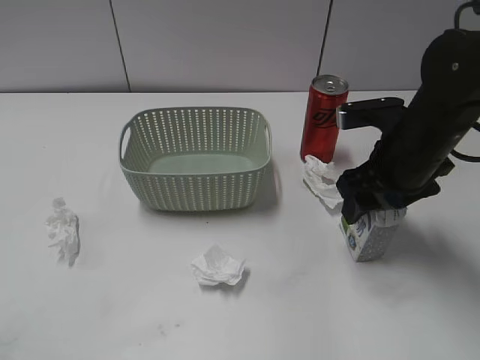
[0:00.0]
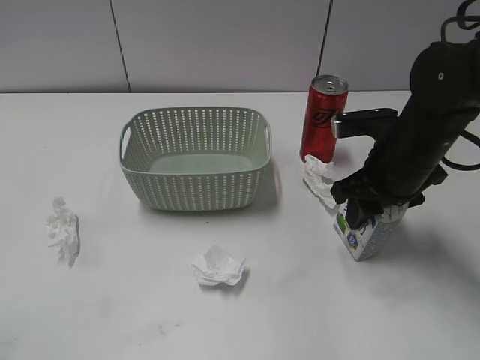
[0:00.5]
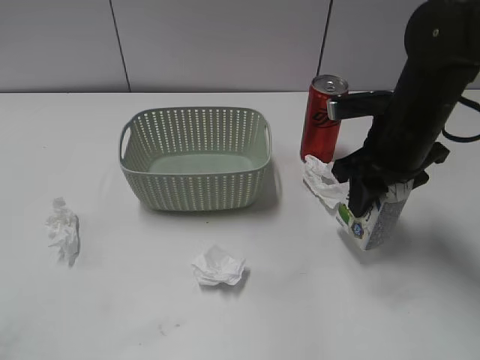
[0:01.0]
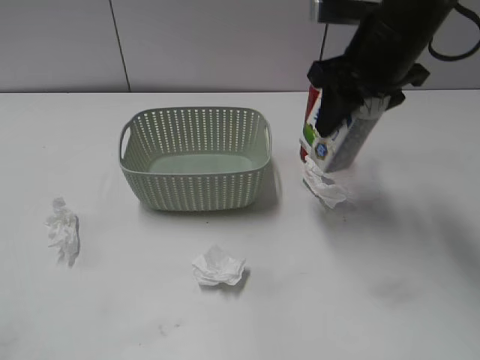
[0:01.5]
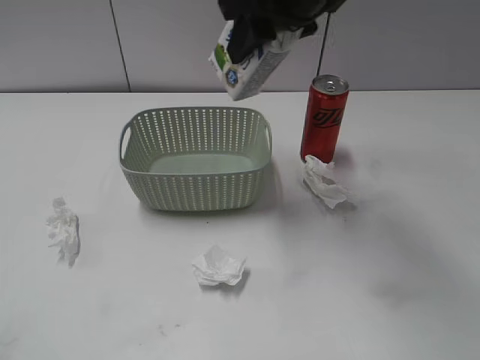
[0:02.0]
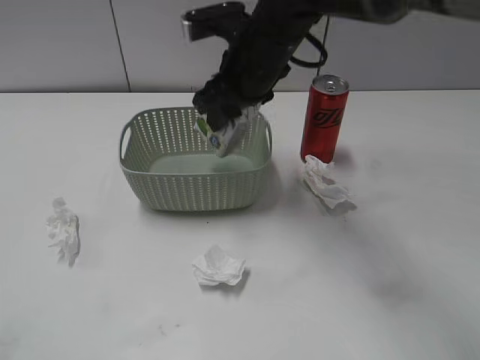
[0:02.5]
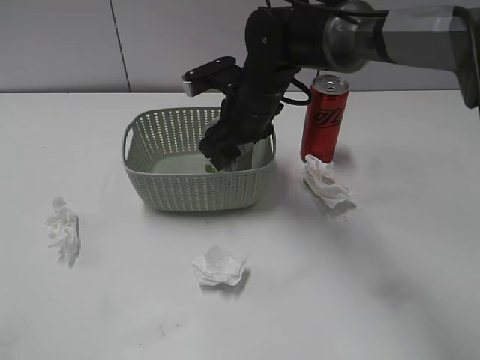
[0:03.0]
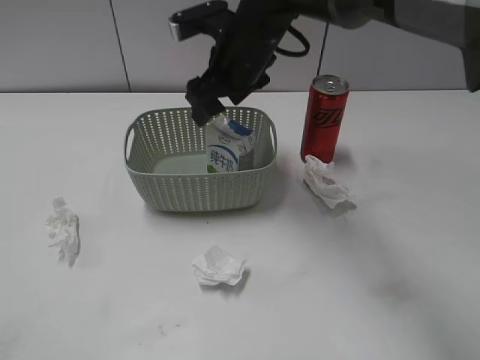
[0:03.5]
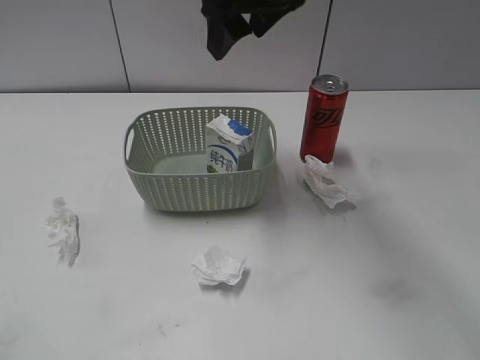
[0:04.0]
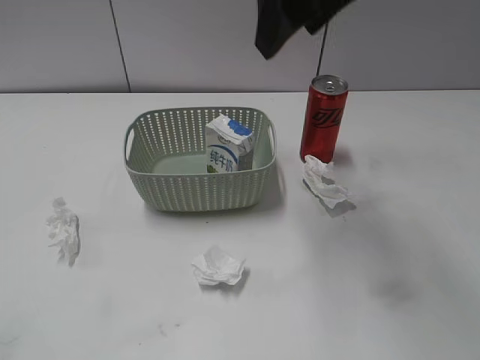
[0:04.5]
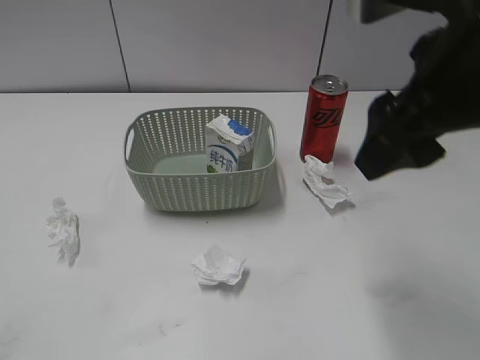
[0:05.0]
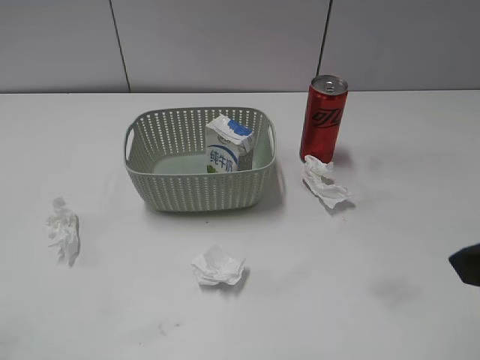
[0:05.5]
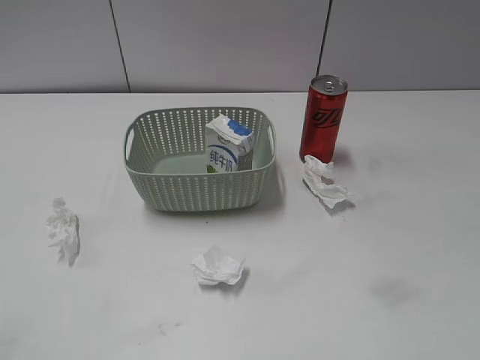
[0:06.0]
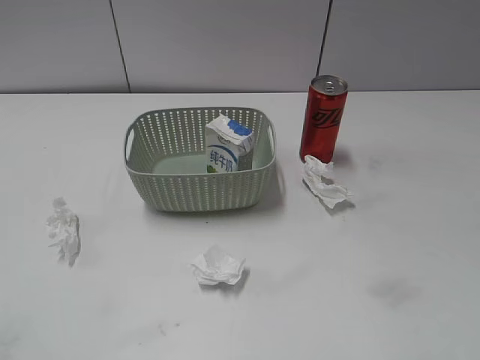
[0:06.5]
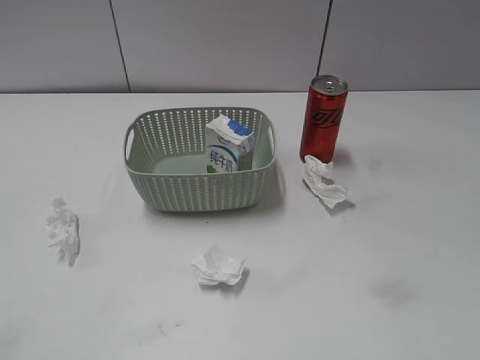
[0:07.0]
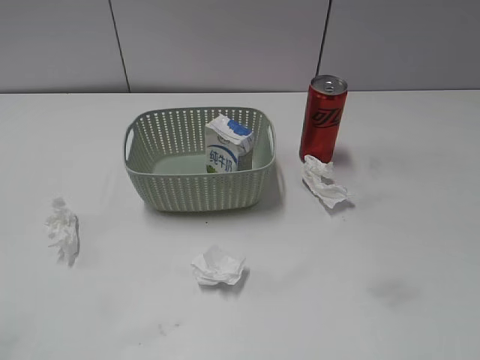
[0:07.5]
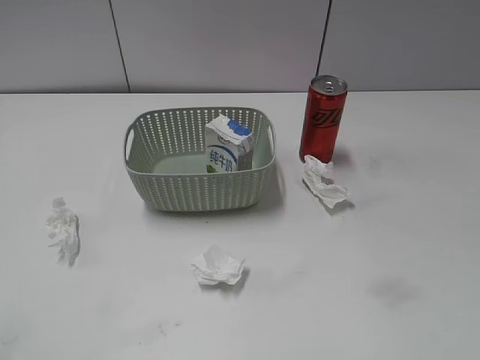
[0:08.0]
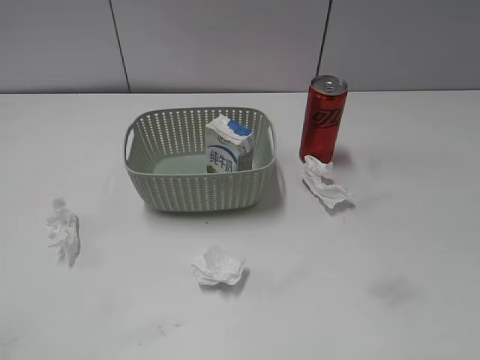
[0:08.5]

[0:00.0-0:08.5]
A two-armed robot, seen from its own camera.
Step, 1.0 to 3.5 s: Place the milk in the basket with right gripper.
0.0 to 2.0 s: The right gripper travels upward and to the left by some 20 cm, and closes up.
2.0 to 4.0 s: The right gripper reaches approximately 15 cm downward, then returns, and opens up.
4.0 to 6.5 s: The right gripper is displaced backward and to the right by some 40 cm.

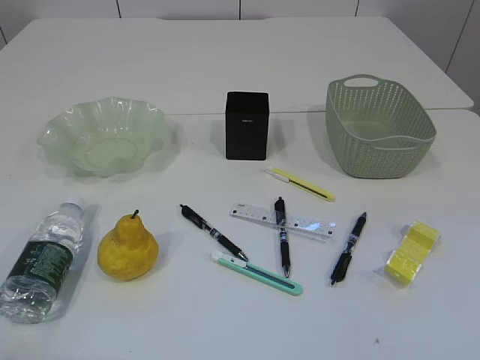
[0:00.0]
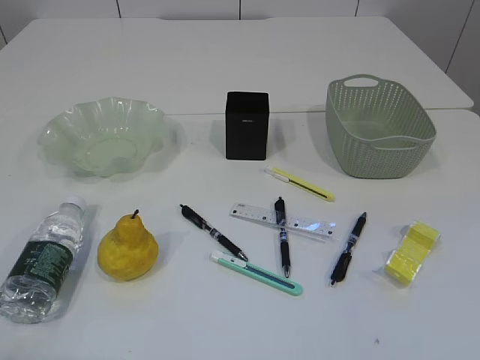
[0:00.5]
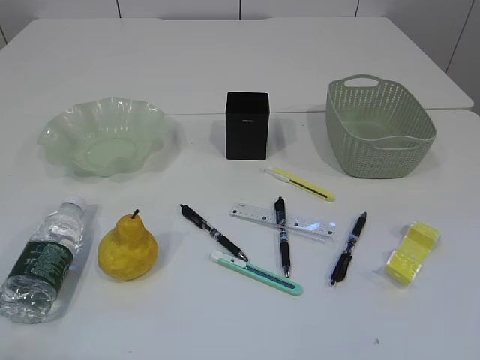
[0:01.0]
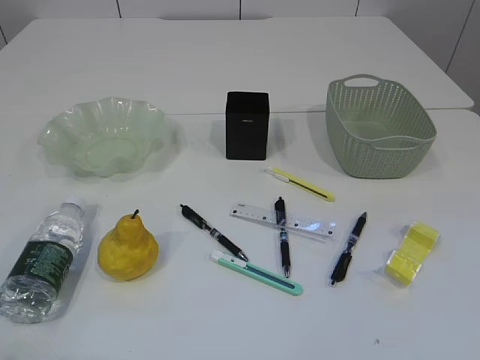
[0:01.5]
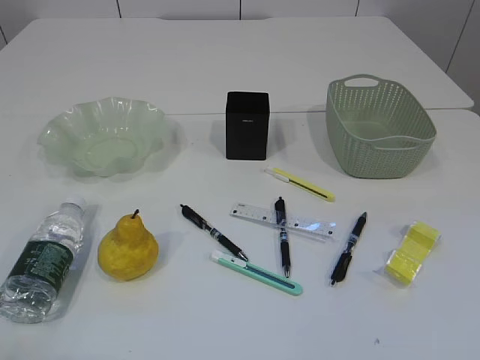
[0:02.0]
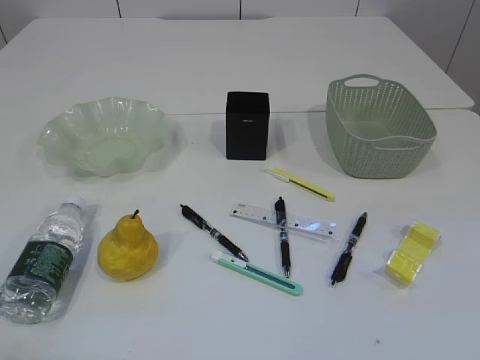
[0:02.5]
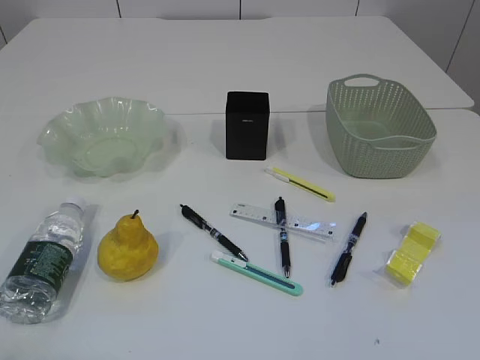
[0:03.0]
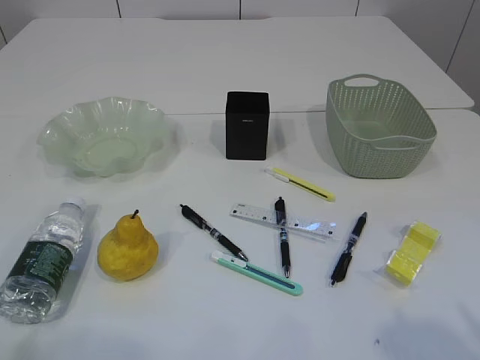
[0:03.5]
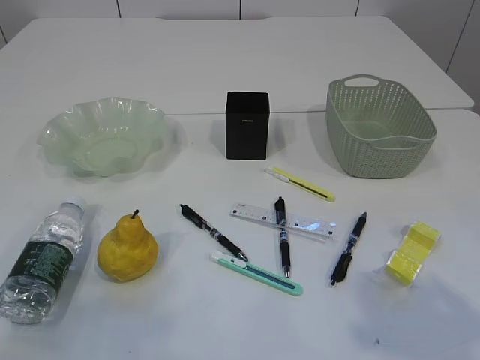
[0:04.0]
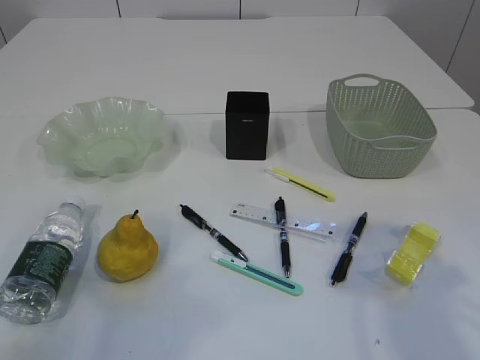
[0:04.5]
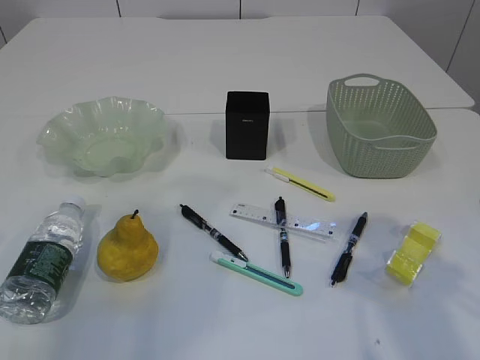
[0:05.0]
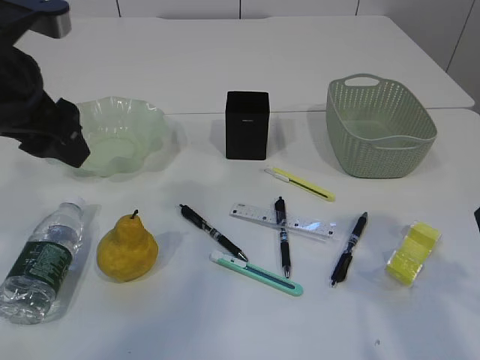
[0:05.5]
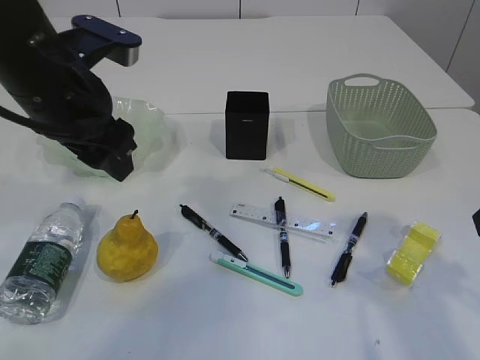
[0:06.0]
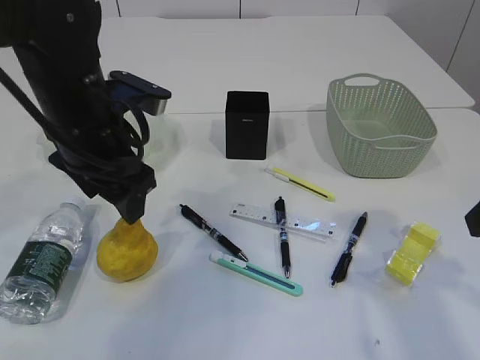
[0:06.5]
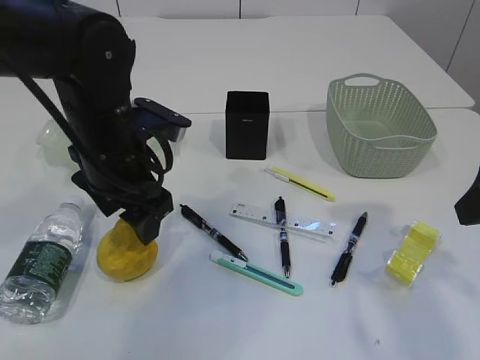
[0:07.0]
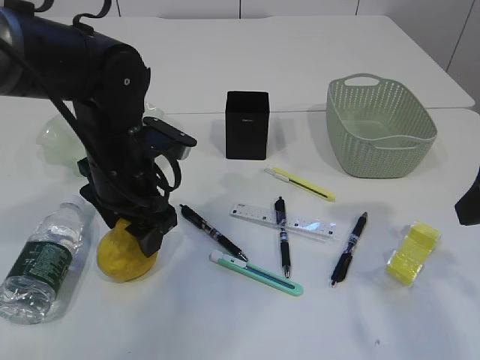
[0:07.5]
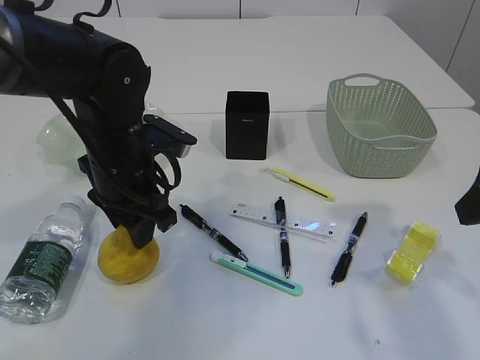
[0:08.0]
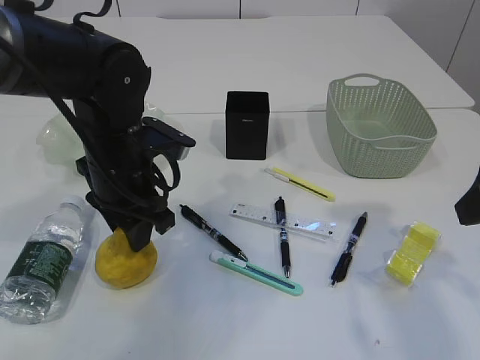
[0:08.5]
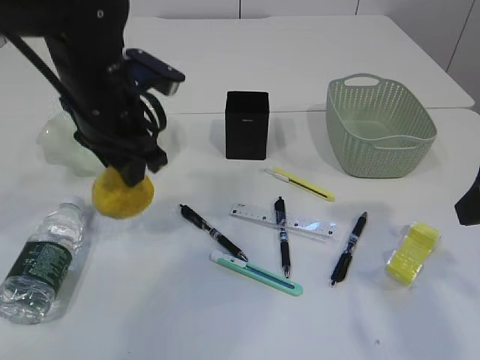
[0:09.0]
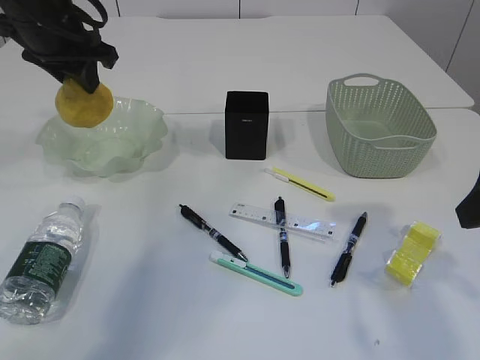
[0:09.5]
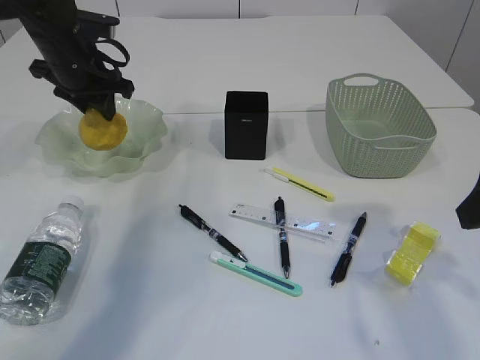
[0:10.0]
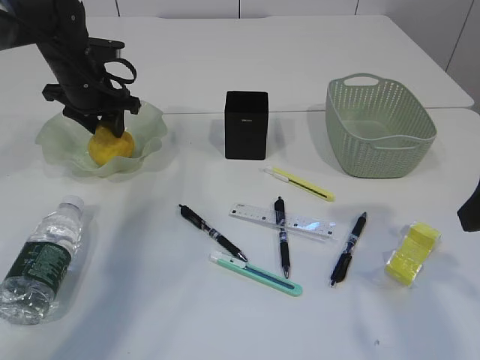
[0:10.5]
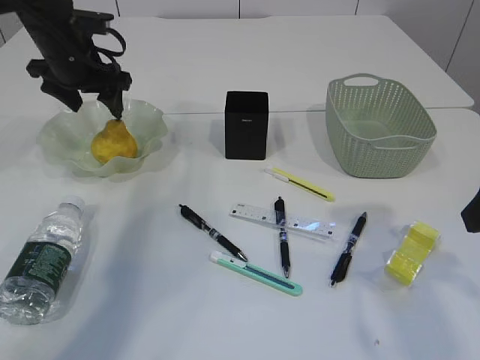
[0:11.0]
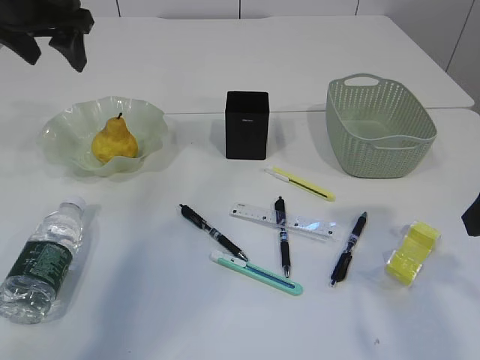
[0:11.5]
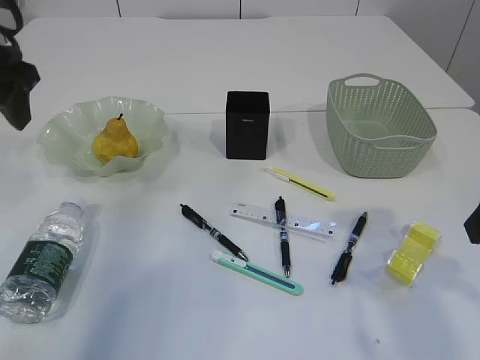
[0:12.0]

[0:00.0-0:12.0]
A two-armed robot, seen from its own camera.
Step, 9.0 to 11.5 s: Place the pear in the plate.
2.0 to 4.0 s: The left gripper moves forward and upward, roughly 10 cm.
4.0 to 6.0 s: The right gripper moves forward, some 10 cm. Meanwhile the left gripper moves forward and to the right, roughly 30 cm.
6.0 to 8.0 s: The left gripper heads downward, covering about 10 cm, and closes its fingers.
8.0 to 10.0 s: The left gripper travels forward and to the left by approximately 20 cm.
10.0 to 12.0 s: The left gripper goes about 15 cm backward and upward, and opens up.

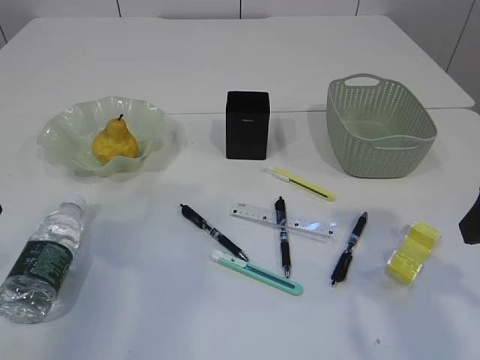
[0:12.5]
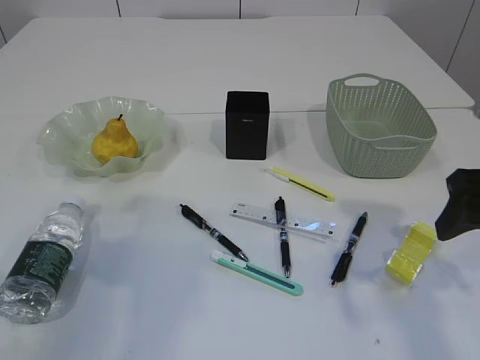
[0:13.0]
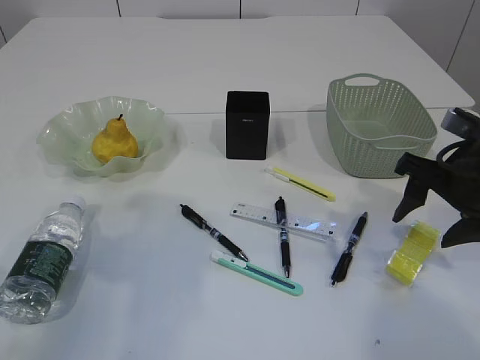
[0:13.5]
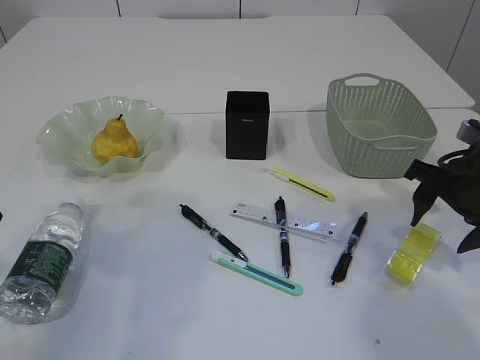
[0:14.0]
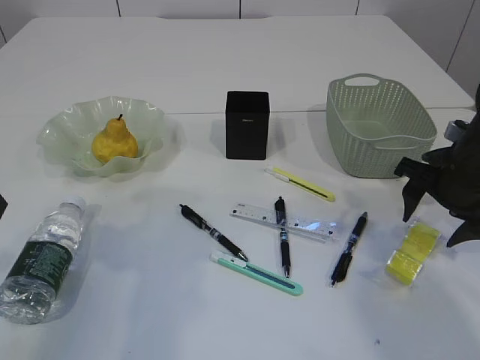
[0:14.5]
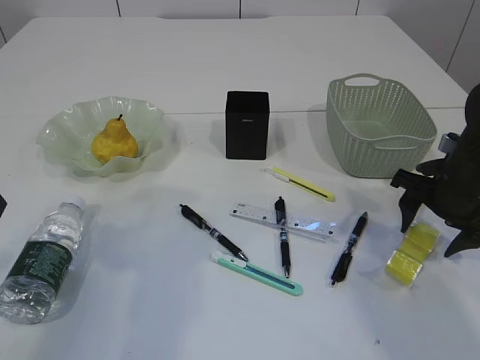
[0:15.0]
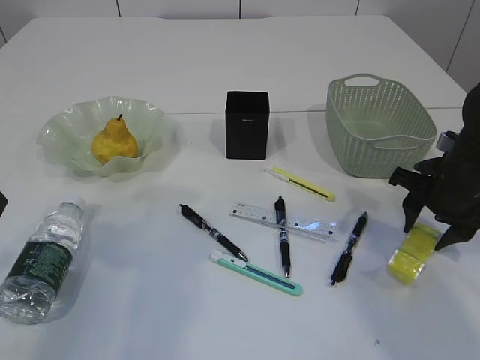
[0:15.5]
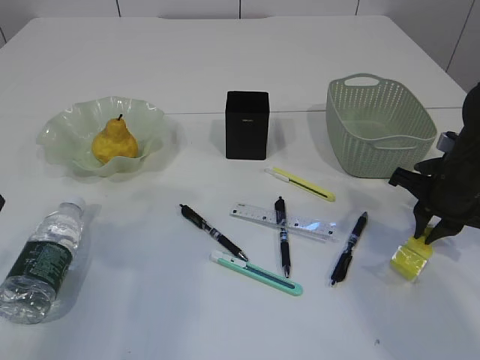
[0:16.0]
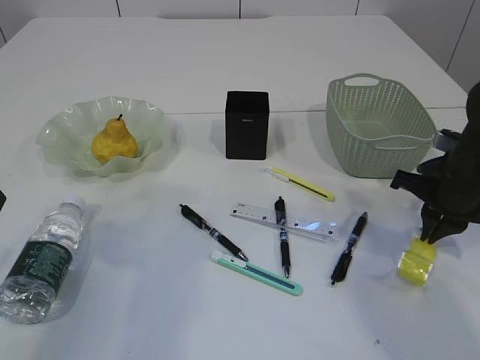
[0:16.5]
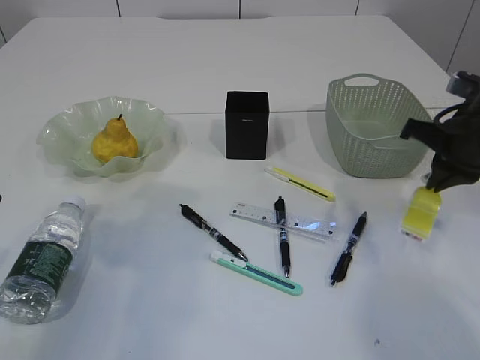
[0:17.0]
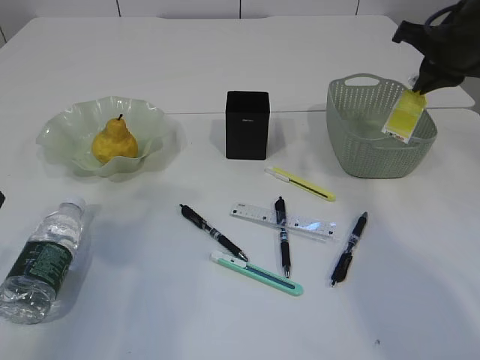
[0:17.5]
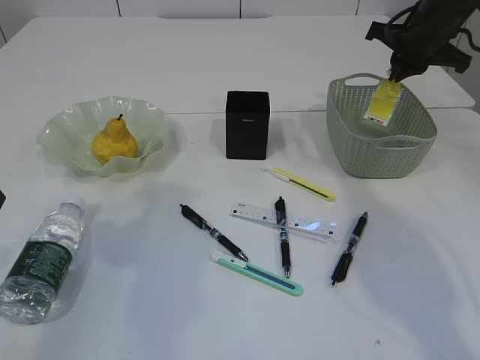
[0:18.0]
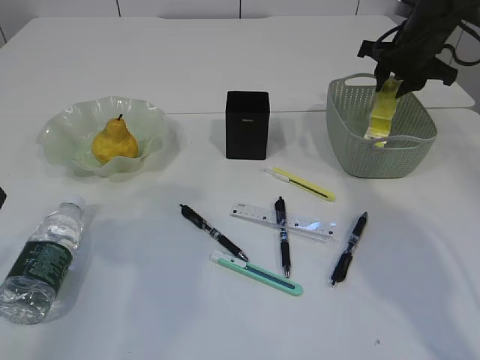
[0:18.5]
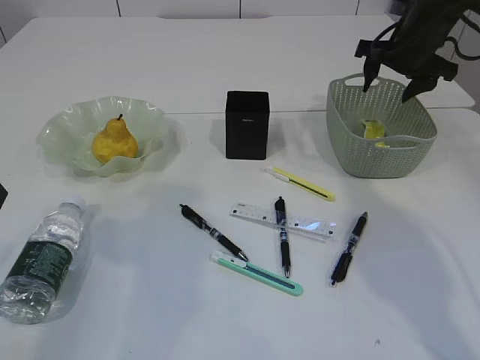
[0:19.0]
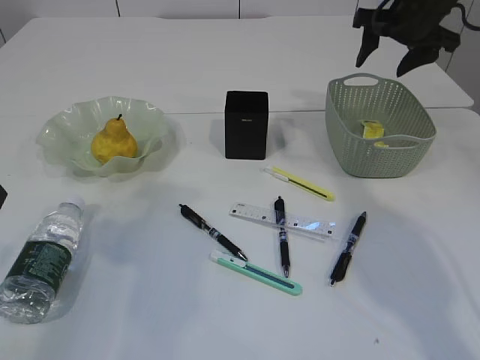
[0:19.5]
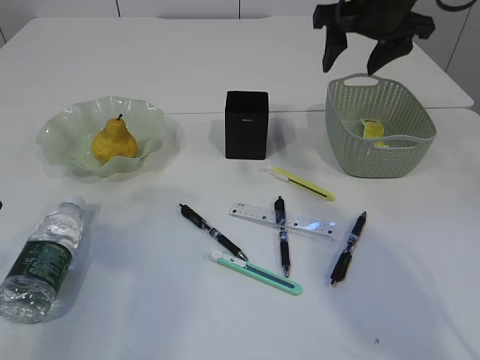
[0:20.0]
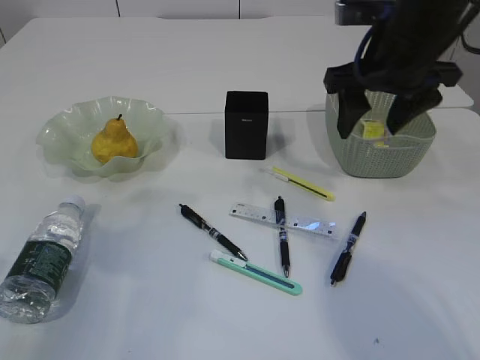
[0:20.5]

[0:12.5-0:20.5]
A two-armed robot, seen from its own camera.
Step, 12.5 to 16.5 s: Pick up the waste paper.
12.5 to 14.5 s: The right gripper travels forward and downward by approximately 15 cm.
14.5 to 16.5 s: The right gripper closes up.
16.5 to 18.5 s: The right gripper is displaced forward and upward by roughly 20 cm, and opens its fingers.
18.5 to 20.5 s: The right gripper goes some 20 cm backward, to the left and upward, and opens its fingers.
